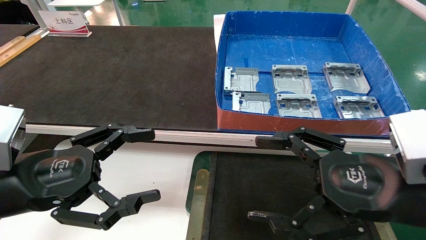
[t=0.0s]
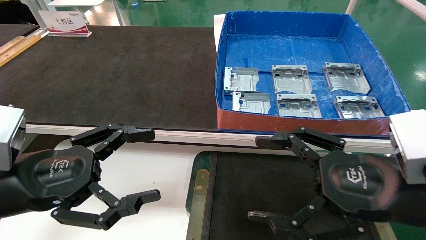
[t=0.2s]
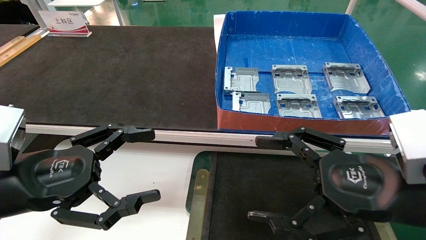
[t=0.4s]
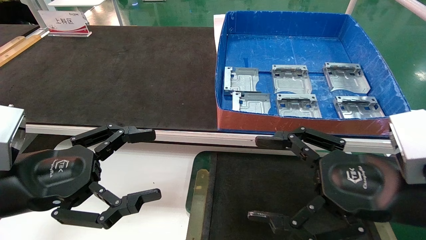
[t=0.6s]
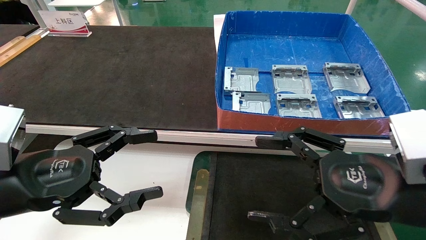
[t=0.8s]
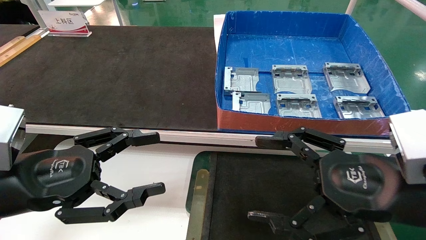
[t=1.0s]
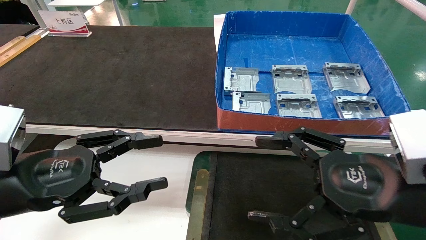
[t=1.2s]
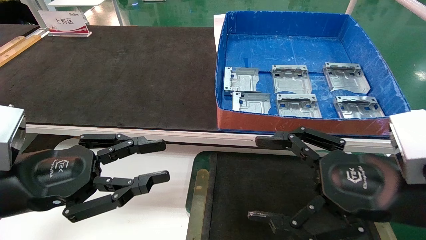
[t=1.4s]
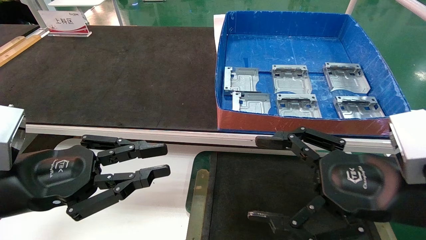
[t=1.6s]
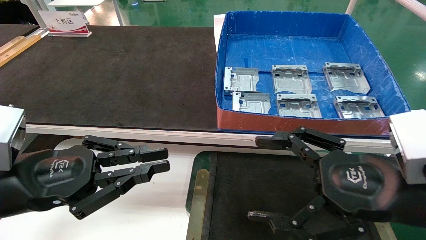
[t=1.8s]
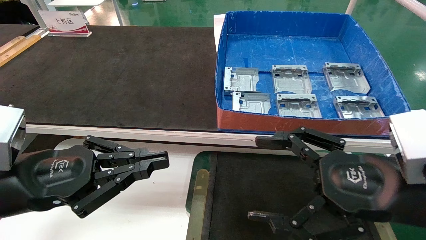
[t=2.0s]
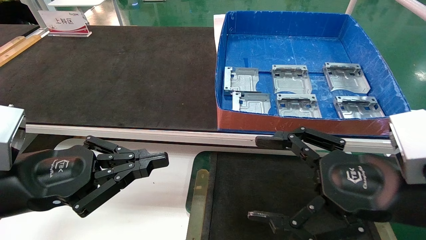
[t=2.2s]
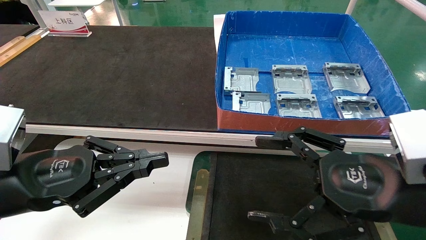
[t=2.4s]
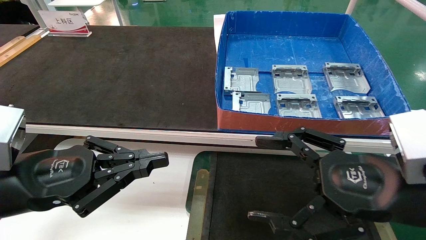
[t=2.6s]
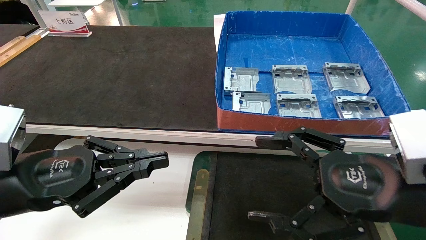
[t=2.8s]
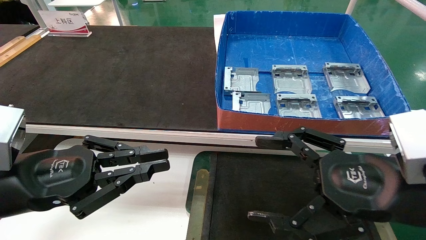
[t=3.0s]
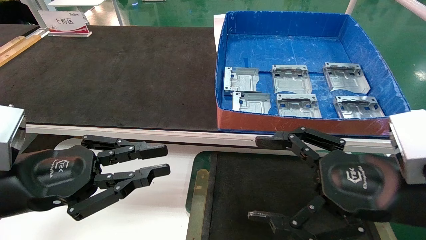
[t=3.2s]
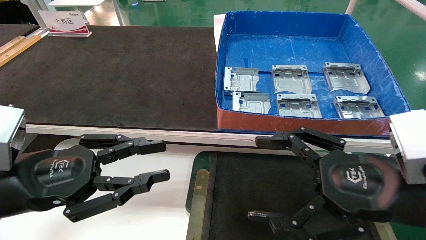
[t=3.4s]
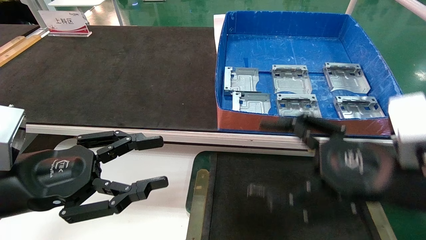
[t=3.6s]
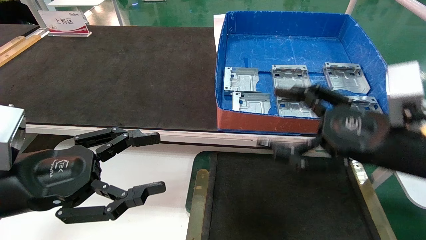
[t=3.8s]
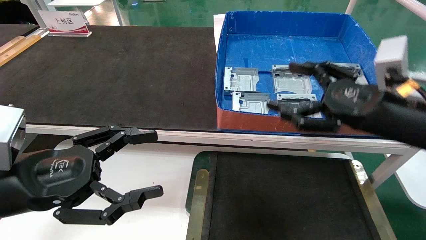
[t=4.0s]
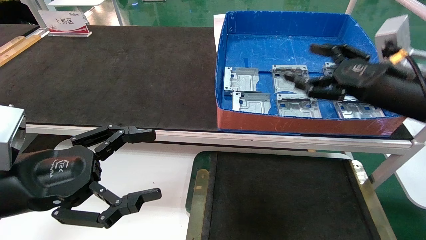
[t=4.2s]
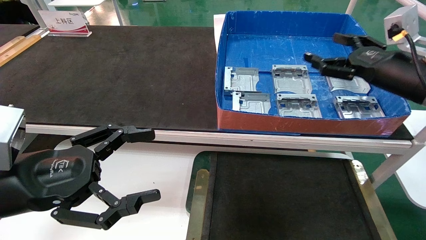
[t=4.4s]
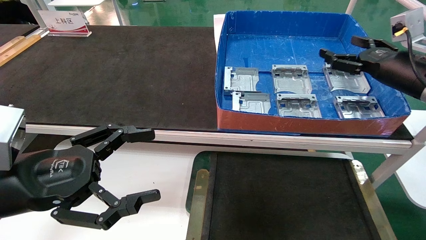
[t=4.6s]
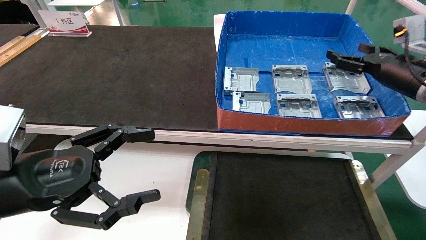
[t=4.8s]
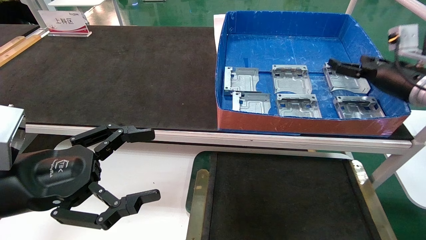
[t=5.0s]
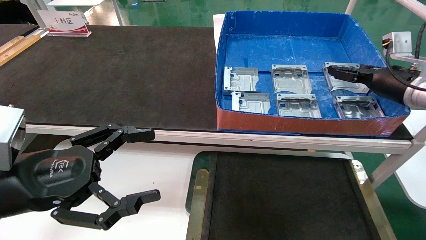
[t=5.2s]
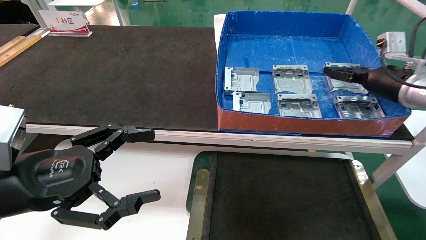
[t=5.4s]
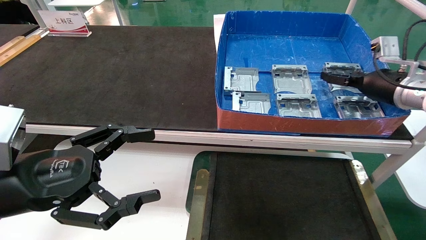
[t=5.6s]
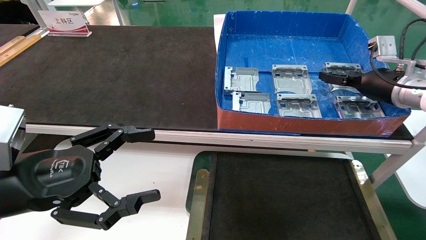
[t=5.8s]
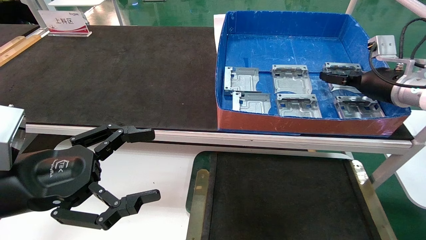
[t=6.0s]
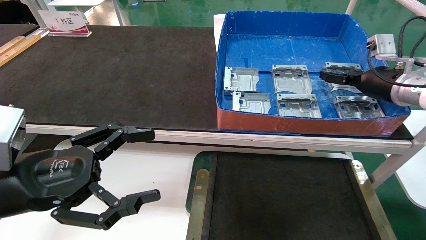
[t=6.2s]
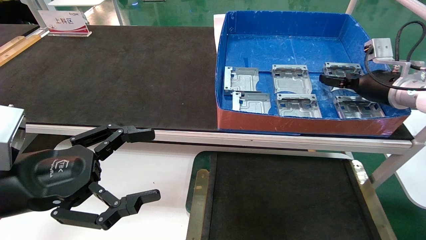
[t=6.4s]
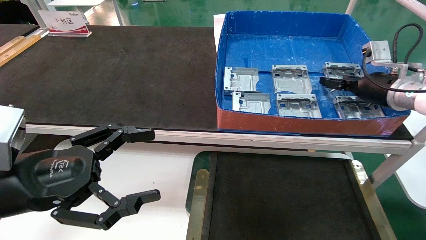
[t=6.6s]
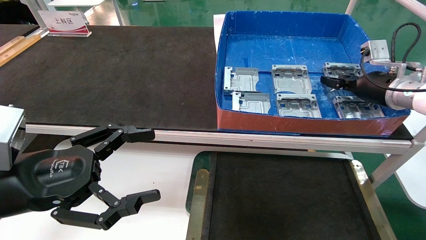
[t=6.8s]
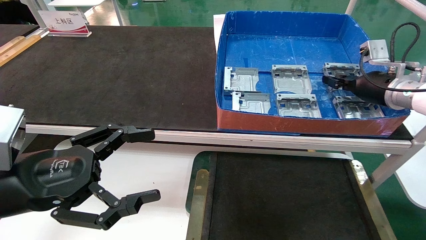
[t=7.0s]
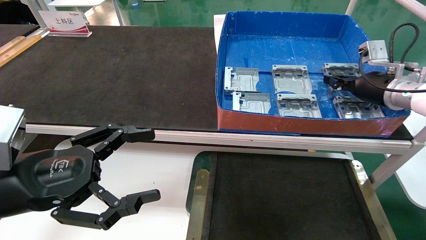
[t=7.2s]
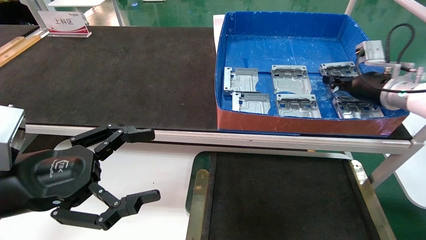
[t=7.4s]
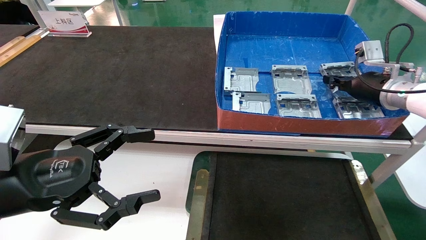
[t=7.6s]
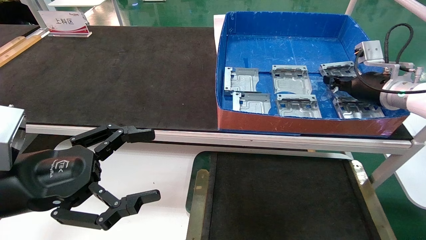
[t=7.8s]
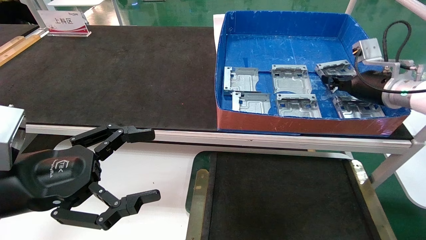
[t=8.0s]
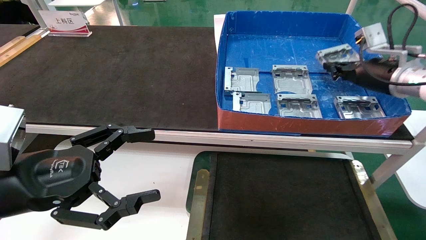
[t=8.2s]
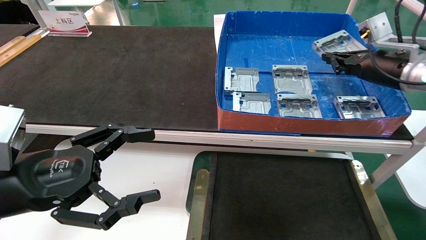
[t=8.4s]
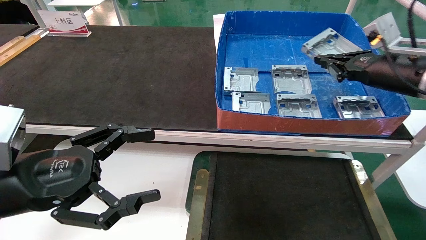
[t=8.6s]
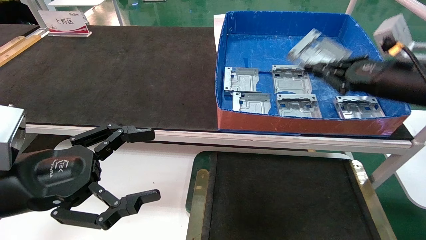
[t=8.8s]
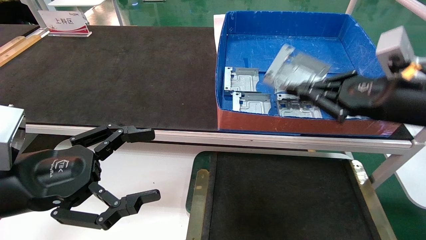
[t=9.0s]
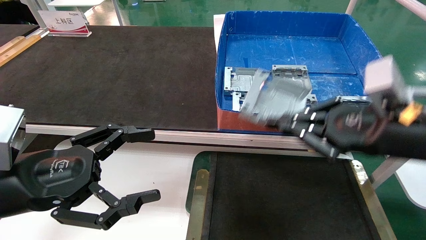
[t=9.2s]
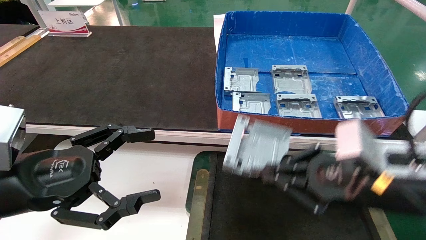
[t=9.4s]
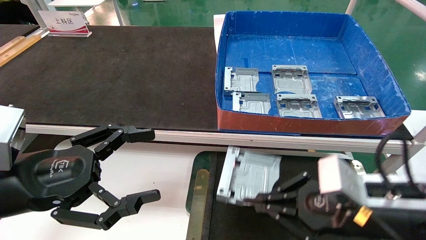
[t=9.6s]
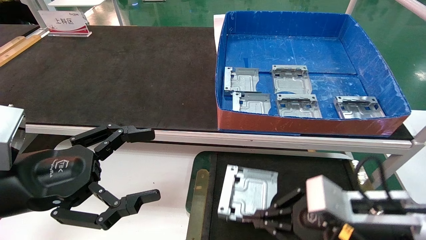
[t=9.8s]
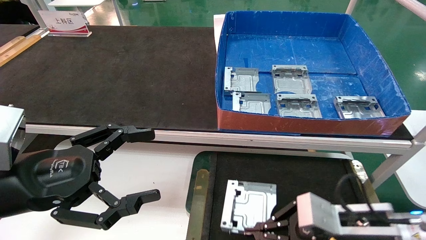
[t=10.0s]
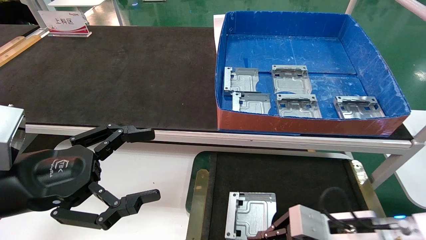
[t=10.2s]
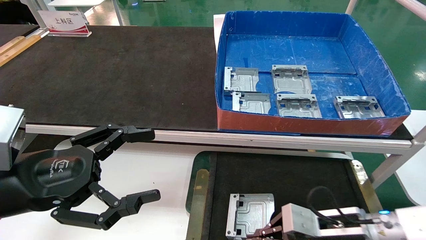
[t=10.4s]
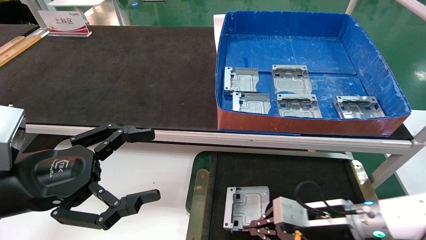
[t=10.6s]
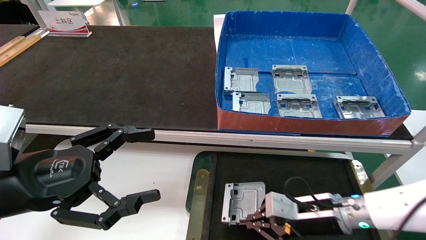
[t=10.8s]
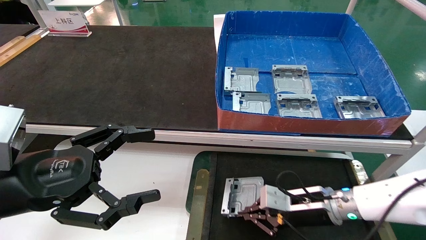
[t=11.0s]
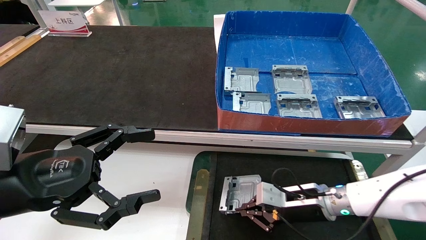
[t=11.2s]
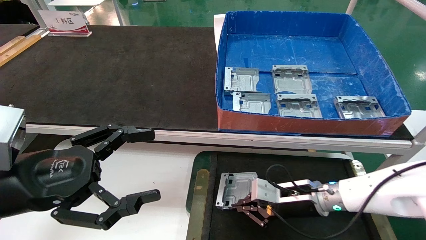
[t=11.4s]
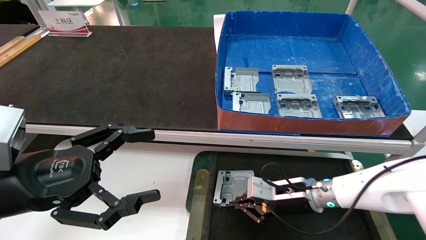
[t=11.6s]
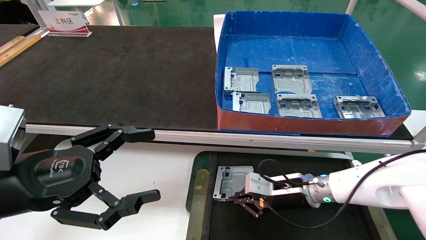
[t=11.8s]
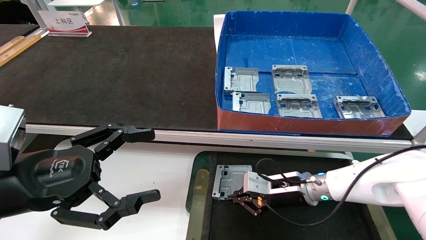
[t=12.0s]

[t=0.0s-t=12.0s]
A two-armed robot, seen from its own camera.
Task of the whole recording: pick up parts and place them into a black container.
Step, t=3.8s to t=7.6s: Pick up the hard drive bracket from the feeding area.
t=0.0s to t=1.6s: The left gripper closes.
t=1.6s to t=3.0s: Both grippers stay about where they are.
t=3.0s to t=4.4s: The left gripper opens. Meanwhile the right gripper is displaced forward, to the right and upward by approximately 20 cm.
t=4.4s to t=6.0s: The right gripper moves forward, approximately 10 cm.
t=6.0s to t=7.6s: The right gripper closes up.
t=7.6s to t=9.0s: The right gripper travels backward by approximately 15 cm.
t=9.0s to t=10.4s: The right gripper travels downward by some 20 cm.
t=10.4s to t=12.0s: The right gripper is displaced forward and to the left by approximately 10 cm.

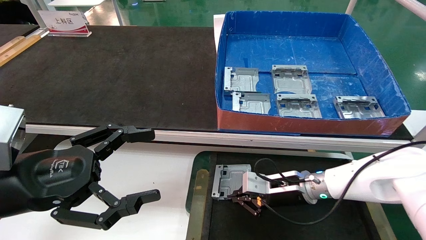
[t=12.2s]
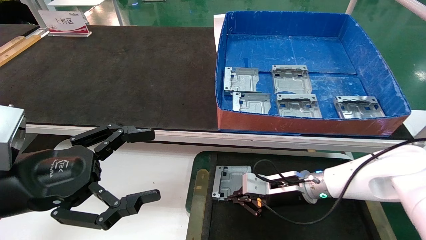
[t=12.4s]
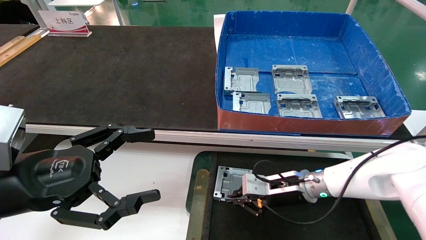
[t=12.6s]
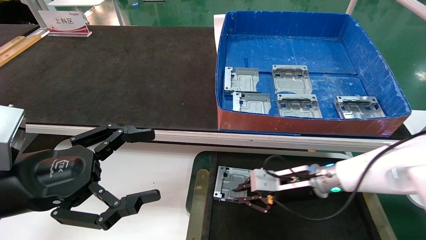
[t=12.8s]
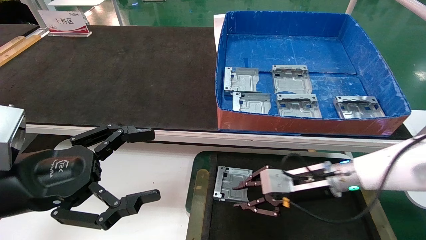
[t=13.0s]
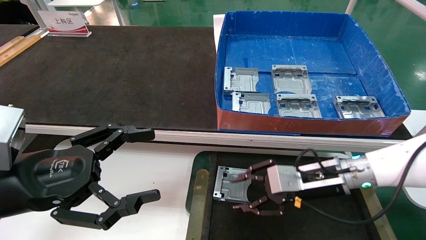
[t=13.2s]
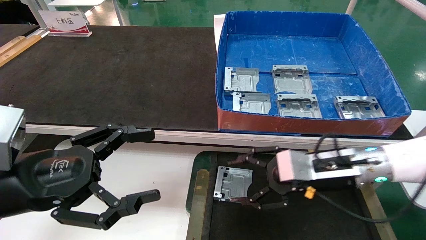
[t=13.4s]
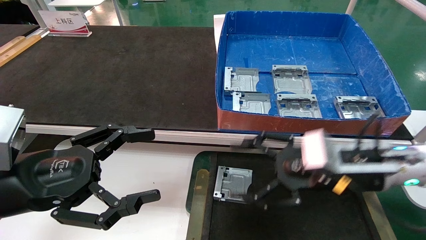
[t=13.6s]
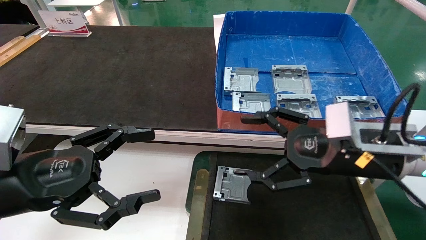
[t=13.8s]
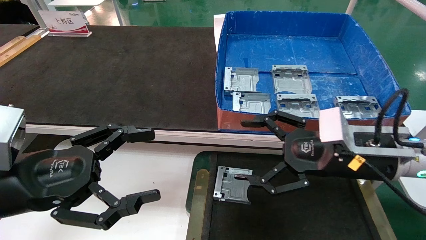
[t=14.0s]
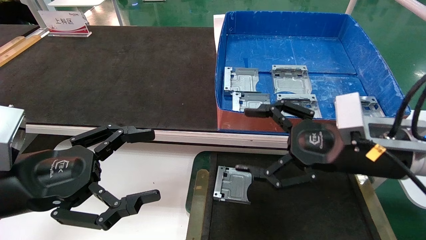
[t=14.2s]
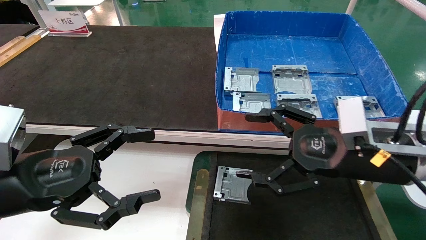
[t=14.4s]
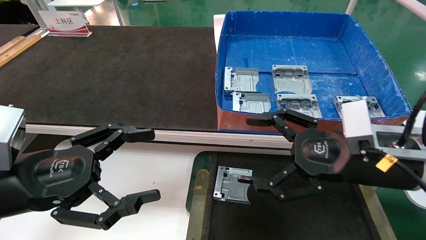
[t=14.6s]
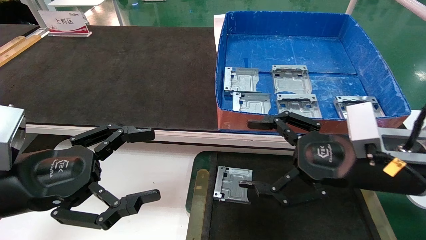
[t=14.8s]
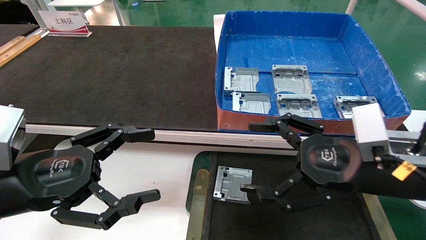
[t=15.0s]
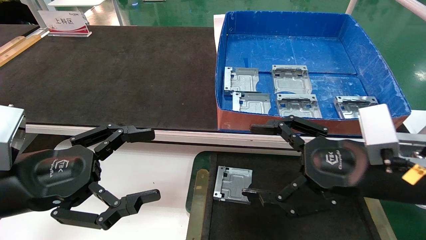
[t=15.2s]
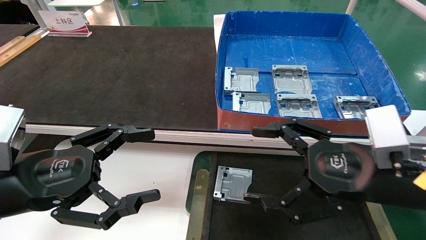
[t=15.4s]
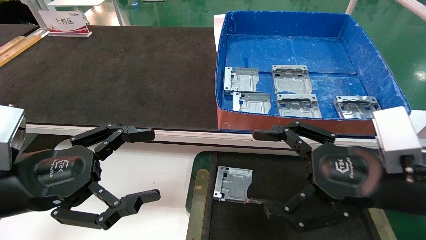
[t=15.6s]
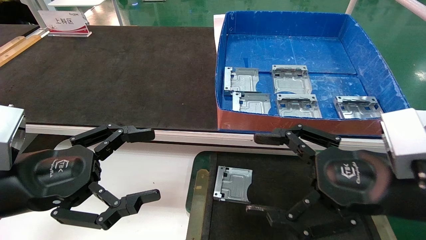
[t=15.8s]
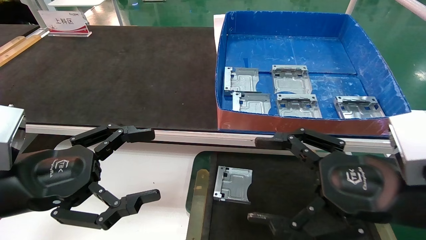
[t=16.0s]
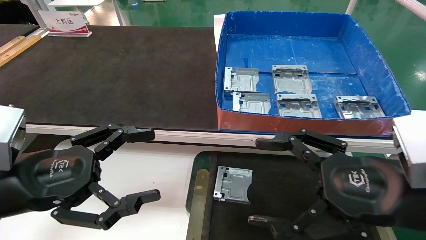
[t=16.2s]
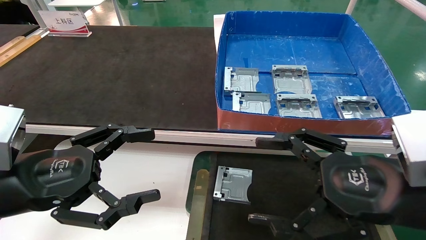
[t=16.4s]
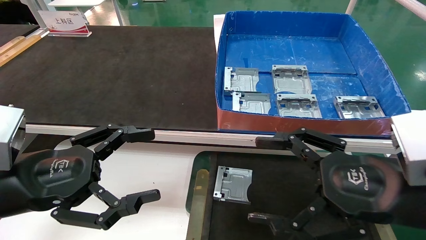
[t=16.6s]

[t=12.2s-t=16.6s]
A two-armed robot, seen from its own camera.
Task of the whole recording: pick up parts and place them into a black container.
t=12.2s to t=13.6s: The right gripper shifts roughly 15 cm upward and backward, and opens up.
t=13.6s to t=15.2s: The right gripper travels backward by roughly 5 cm.
t=15.2s to t=16.6s: The grippers move only a little.
